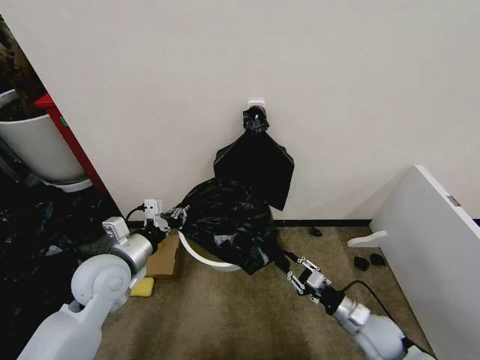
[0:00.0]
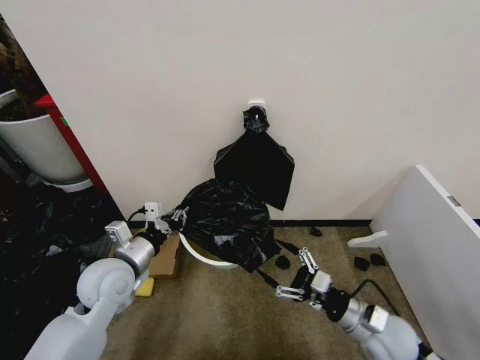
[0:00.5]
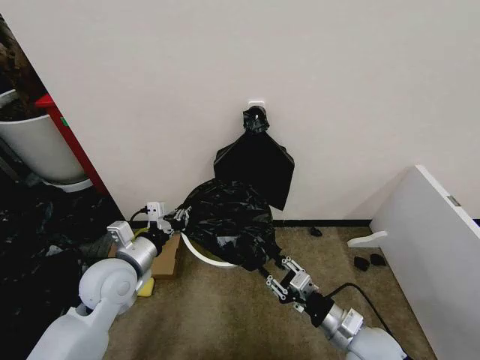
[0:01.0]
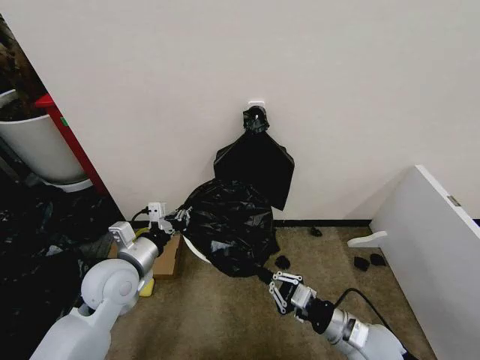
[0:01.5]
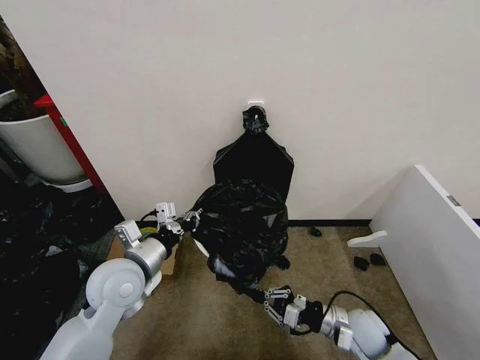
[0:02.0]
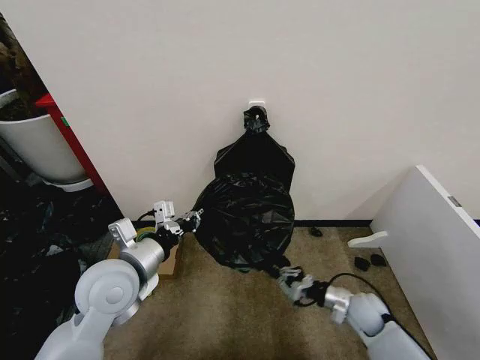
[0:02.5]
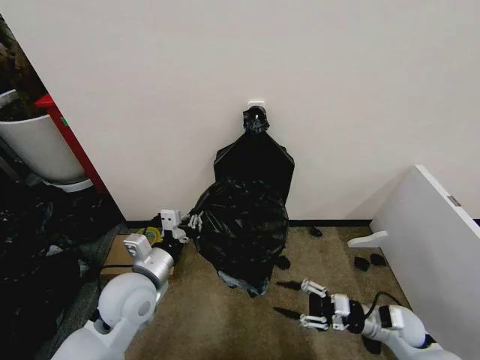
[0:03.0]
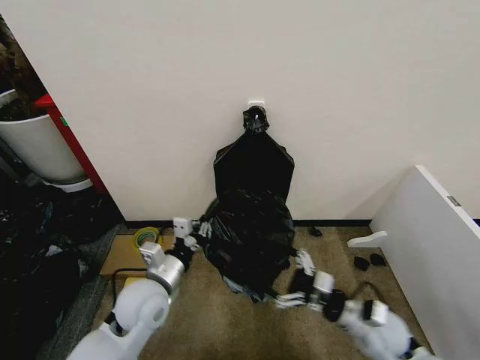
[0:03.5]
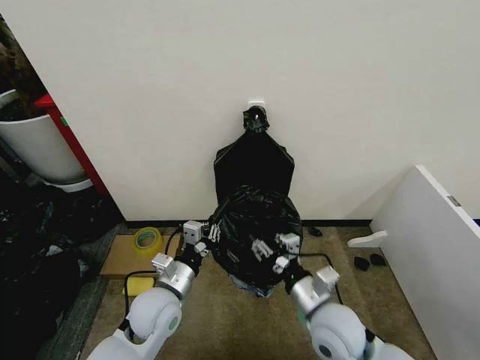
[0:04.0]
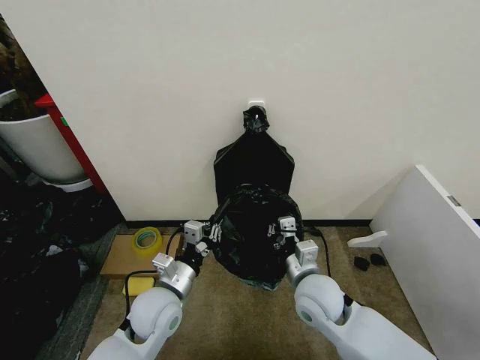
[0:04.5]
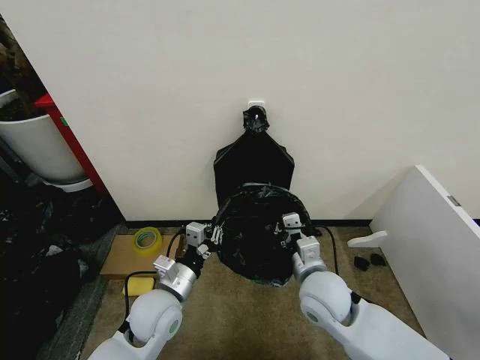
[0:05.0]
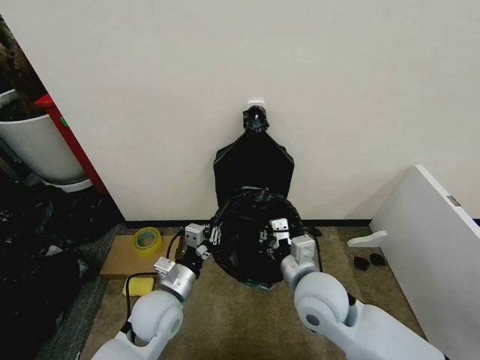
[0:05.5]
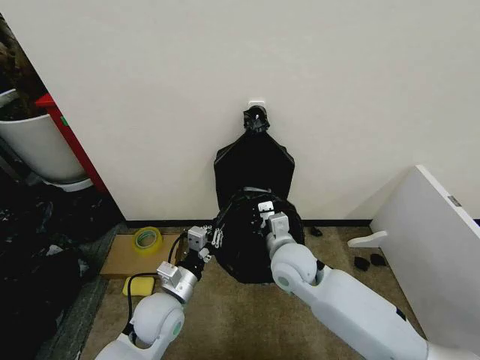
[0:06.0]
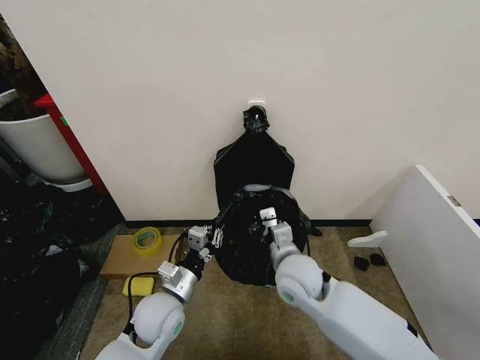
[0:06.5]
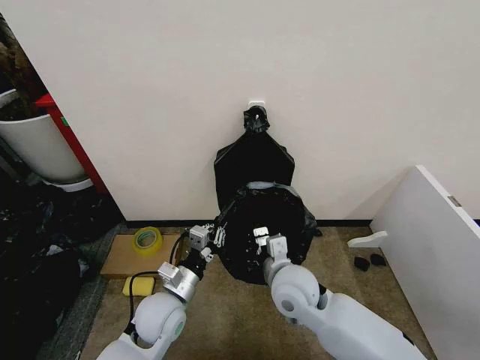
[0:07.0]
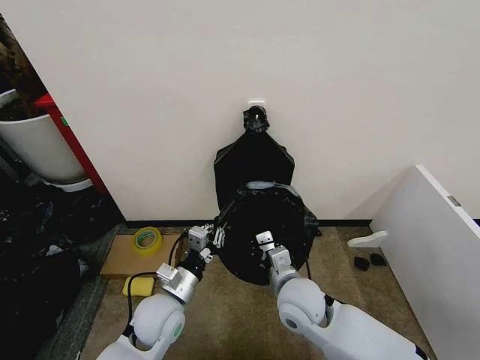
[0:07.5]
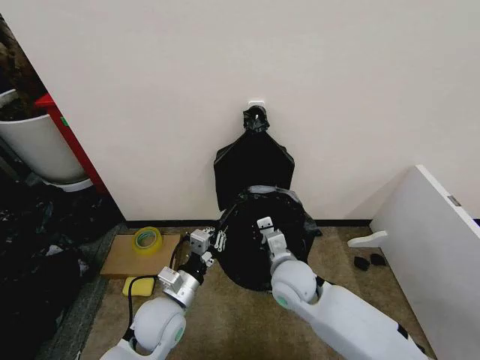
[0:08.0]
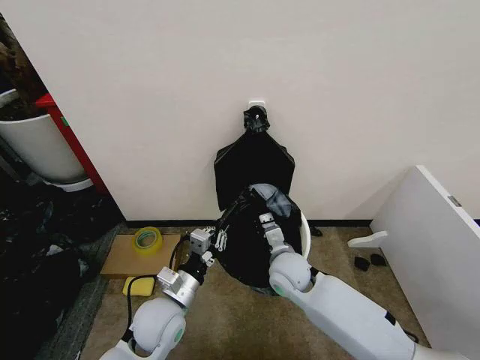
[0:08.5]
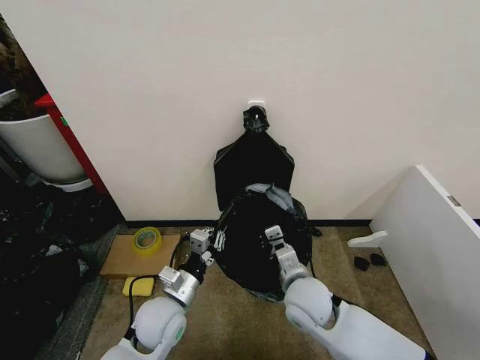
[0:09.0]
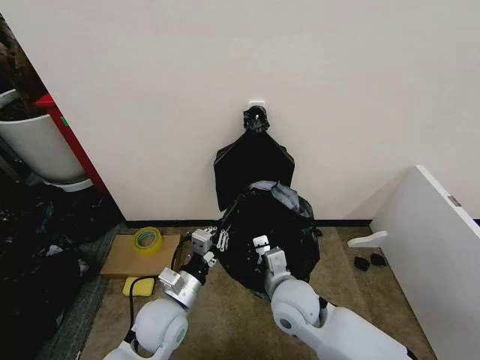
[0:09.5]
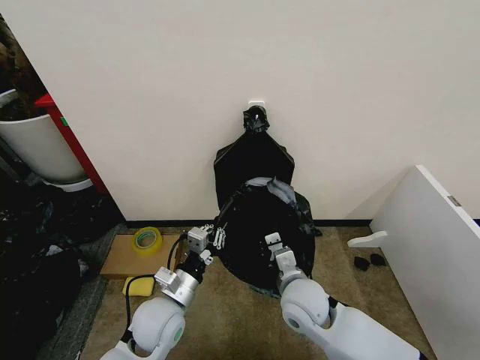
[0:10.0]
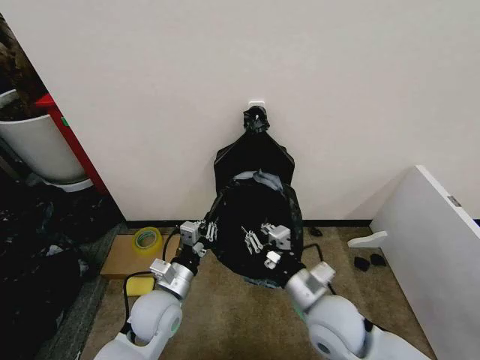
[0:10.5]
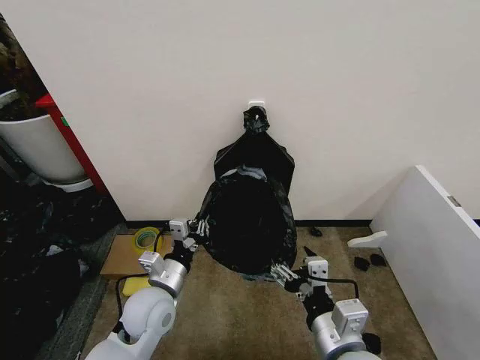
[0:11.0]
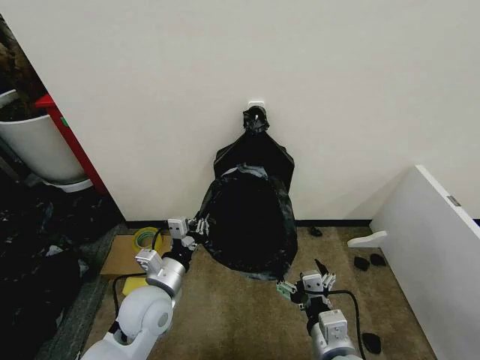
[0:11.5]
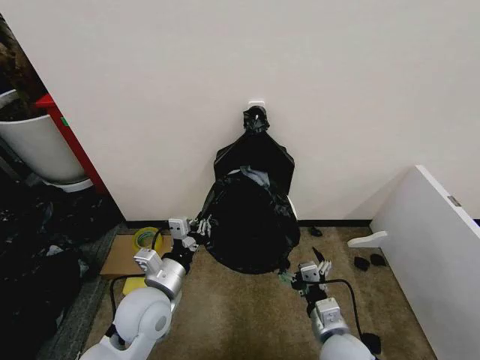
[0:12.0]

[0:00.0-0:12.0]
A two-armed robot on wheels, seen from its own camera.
Task of the whole recording: Place the garbage bag over the trash bin.
0:00.0 to 0:02.0: The right gripper goes upward and returns, some 10 cm each way, and opens and closes again.
0:02.0 to 0:04.0: The left gripper travels downward and to the right by approximately 10 cm. Meanwhile the right gripper is displaced upward and to the left by approximately 15 cm, and opens its fingers.
0:04.0 to 0:06.0: The right gripper heads forward and to the left, covering about 15 cm, and closes.
0:10.0 to 0:12.0: The left gripper ends up about 5 cm from where it was. Meanwhile the right gripper moves backward and to the right, some 10 cm, and opens.

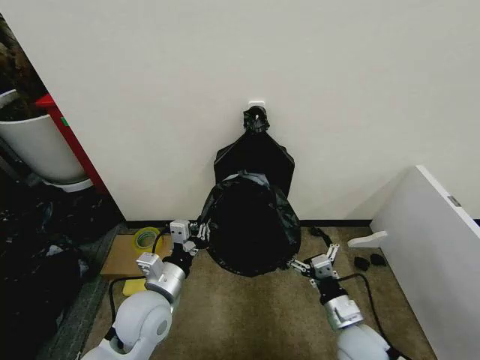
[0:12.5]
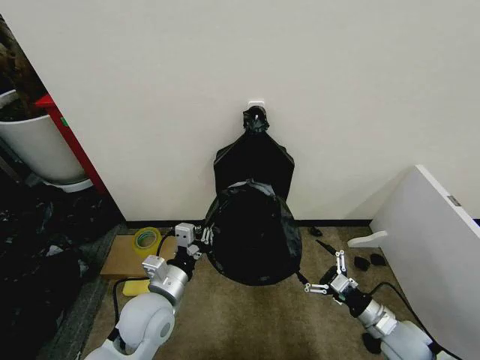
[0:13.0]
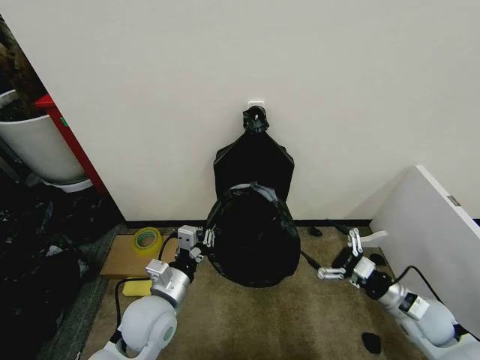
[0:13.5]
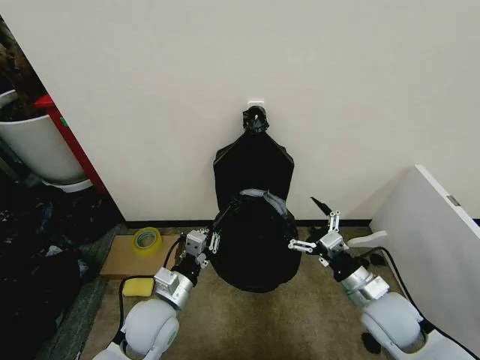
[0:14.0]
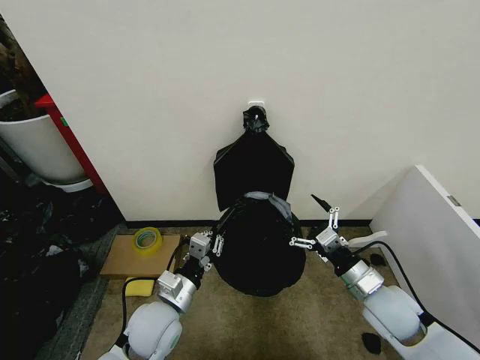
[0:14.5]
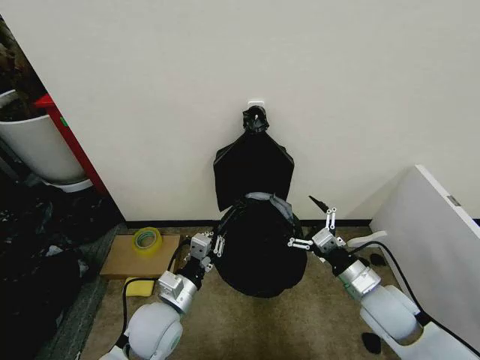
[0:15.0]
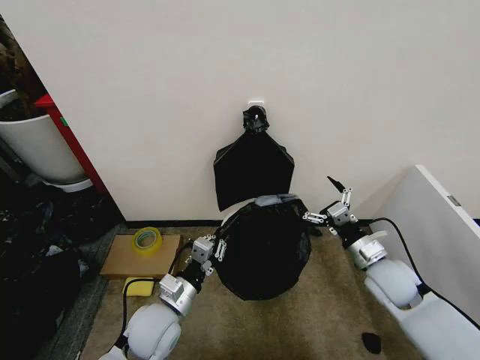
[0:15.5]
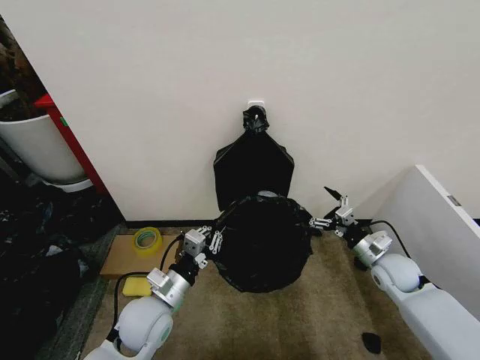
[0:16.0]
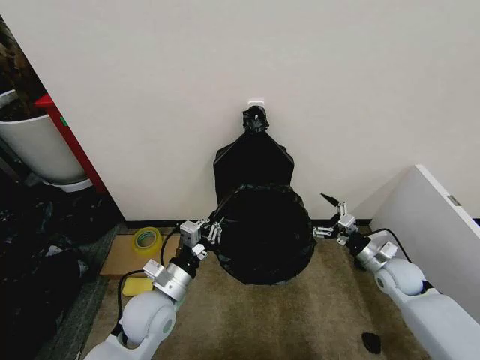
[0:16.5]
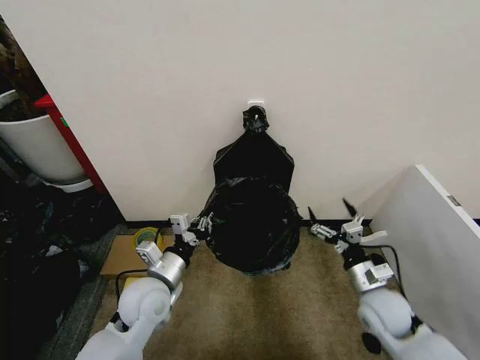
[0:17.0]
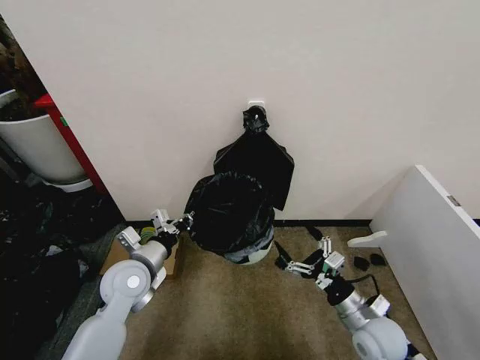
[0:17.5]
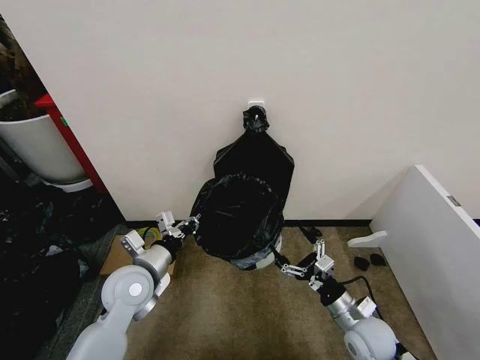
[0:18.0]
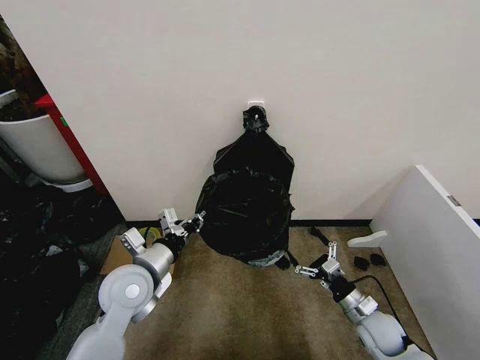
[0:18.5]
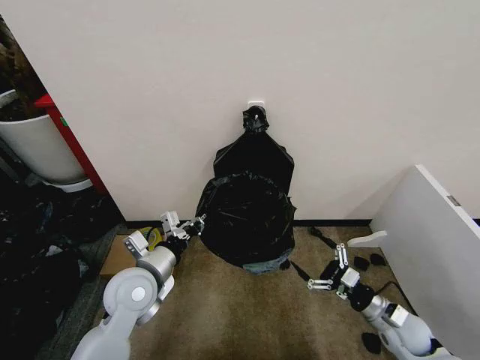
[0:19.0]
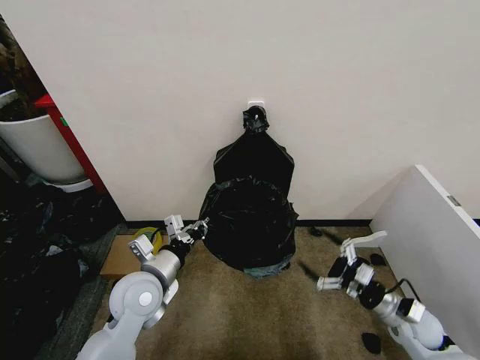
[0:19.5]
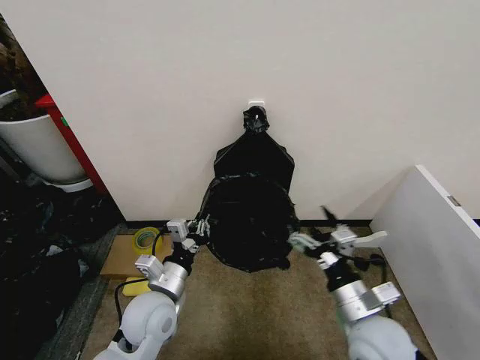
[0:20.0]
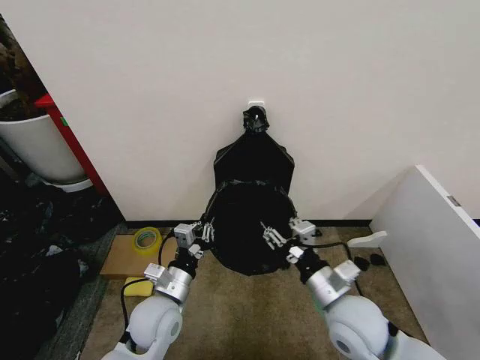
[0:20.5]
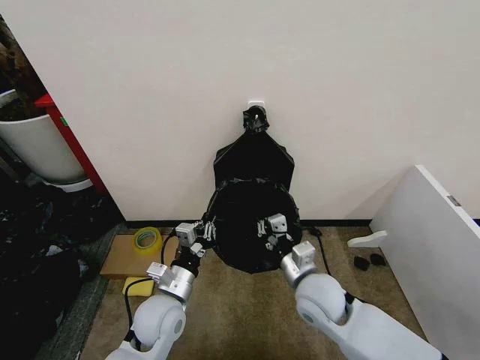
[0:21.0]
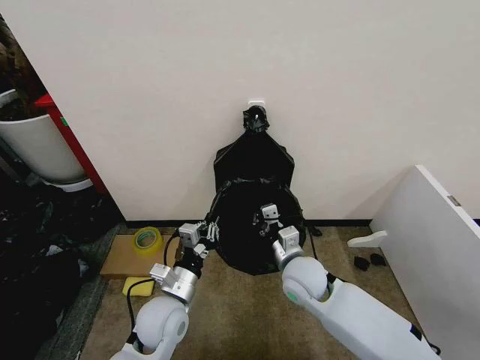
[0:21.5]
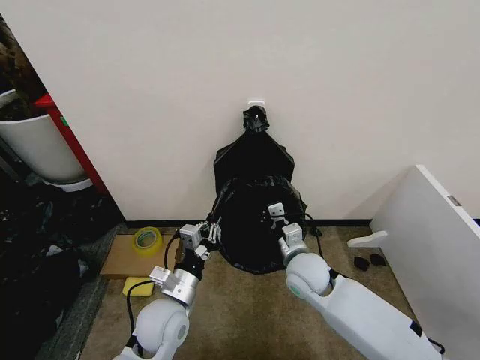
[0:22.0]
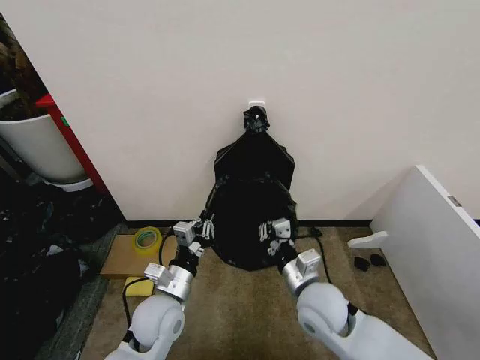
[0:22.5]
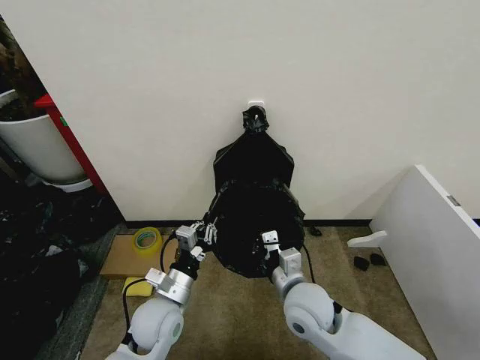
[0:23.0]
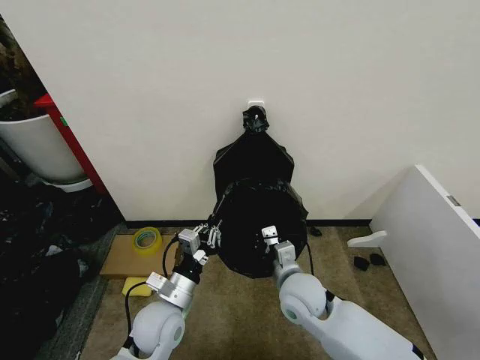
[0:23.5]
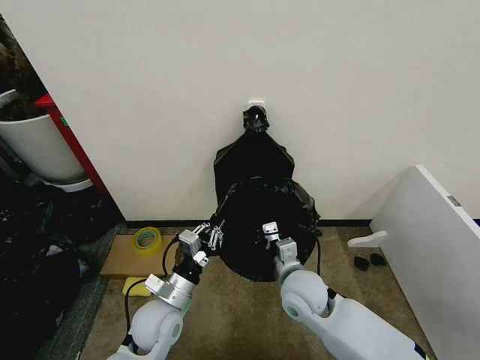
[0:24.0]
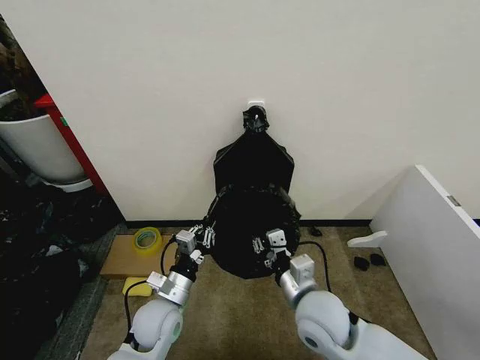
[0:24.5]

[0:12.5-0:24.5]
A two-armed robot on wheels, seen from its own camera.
Task of the whole recording: Place the garbage bag over the trash bin.
0:12.5 to 0:14.5: The right gripper is displaced upward and forward by roughly 10 cm, and reaches some 15 cm to the right, then returns.
0:14.5 to 0:16.5: The right gripper travels forward, to the right and downward by roughly 15 cm.
0:16.5 to 0:18.5: The left gripper is displaced upward by roughly 5 cm. The right gripper is displaced backward, downward and to the left by roughly 15 cm.
0:18.5 to 0:20.5: The right gripper moves upward and to the left, about 20 cm, and closes up. The left gripper heads downward, covering roughly 10 cm.
0:20.5 to 0:22.5: The right gripper travels forward and back again, some 10 cm each way, and closes up.

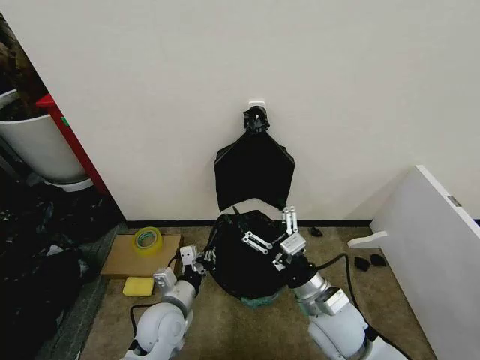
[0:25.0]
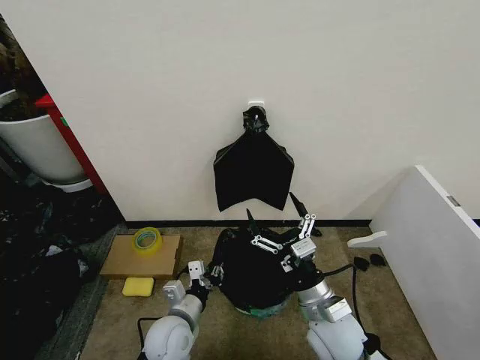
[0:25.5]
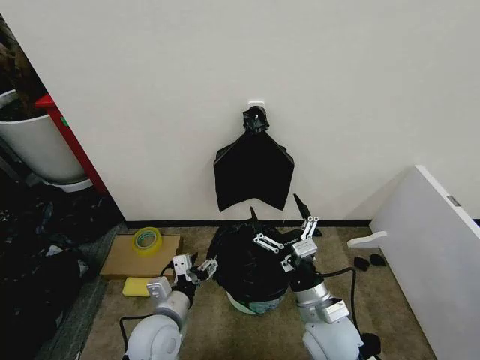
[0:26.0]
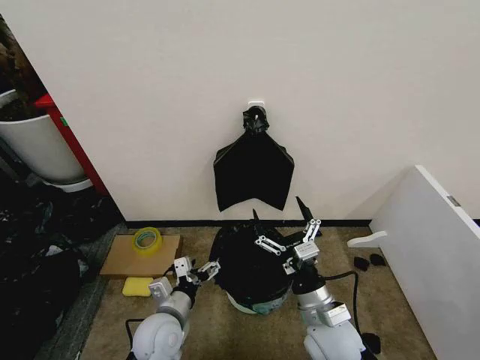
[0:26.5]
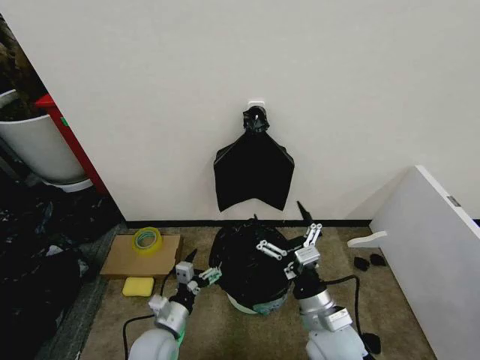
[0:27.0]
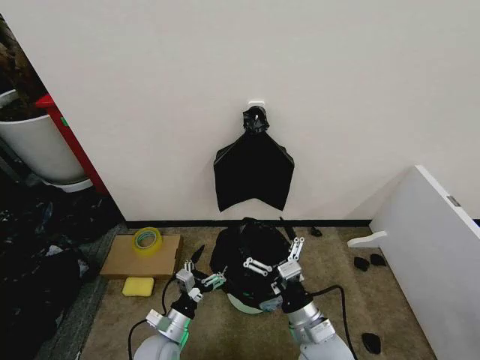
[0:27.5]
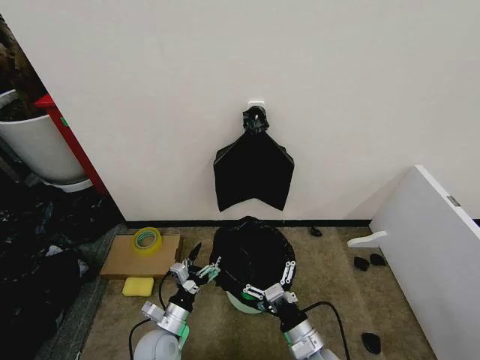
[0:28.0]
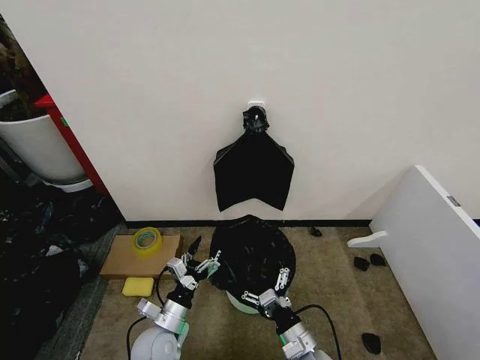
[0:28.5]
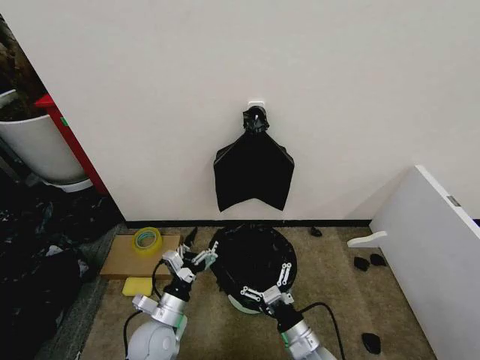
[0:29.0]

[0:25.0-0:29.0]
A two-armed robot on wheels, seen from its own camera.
Task of the whole recording: Place the garbage bag over the trash bin.
0:25.0 to 0:27.0: The left gripper travels downward by approximately 5 cm, and opens its fingers.
0:27.0 to 0:29.0: The right gripper goes roughly 10 cm downward.
